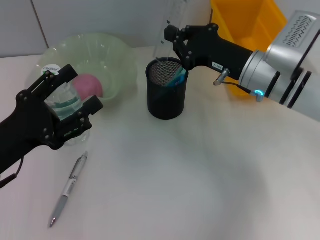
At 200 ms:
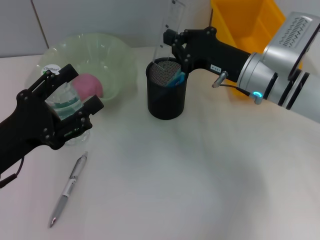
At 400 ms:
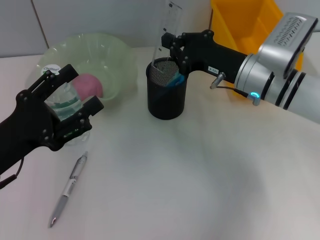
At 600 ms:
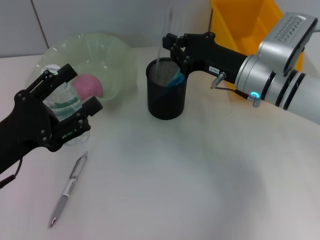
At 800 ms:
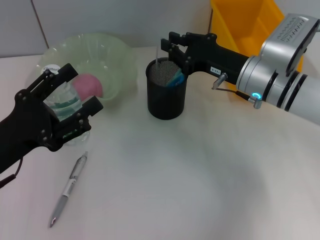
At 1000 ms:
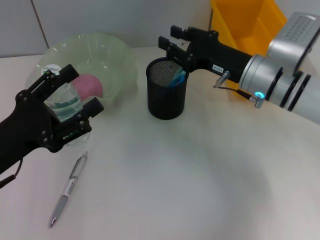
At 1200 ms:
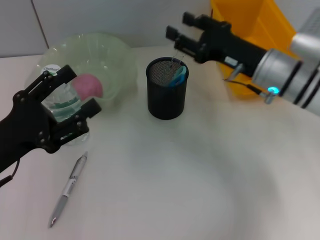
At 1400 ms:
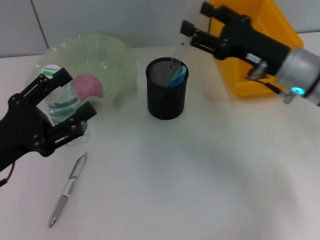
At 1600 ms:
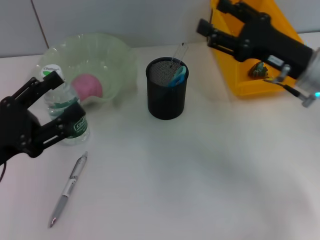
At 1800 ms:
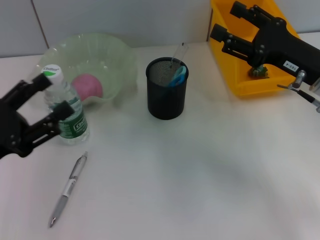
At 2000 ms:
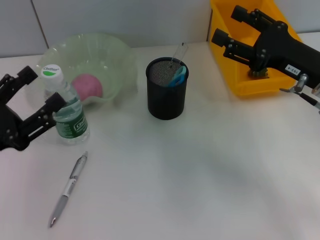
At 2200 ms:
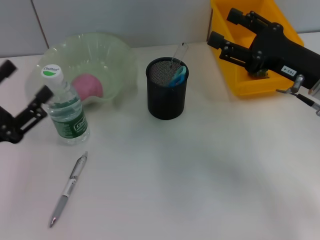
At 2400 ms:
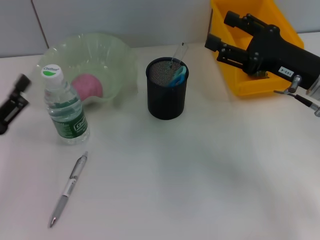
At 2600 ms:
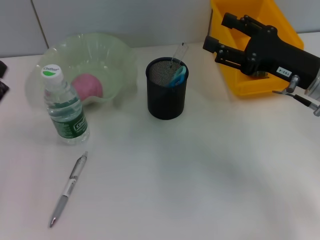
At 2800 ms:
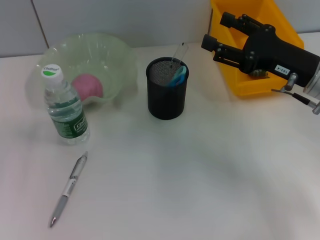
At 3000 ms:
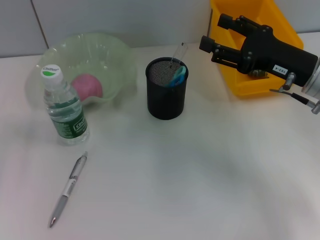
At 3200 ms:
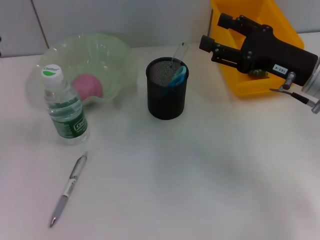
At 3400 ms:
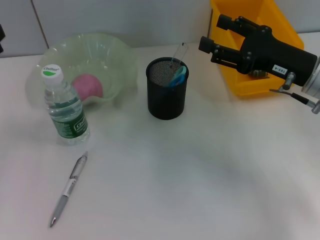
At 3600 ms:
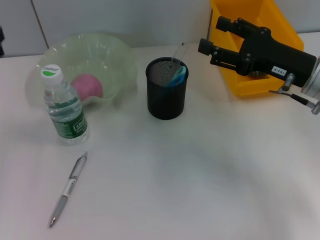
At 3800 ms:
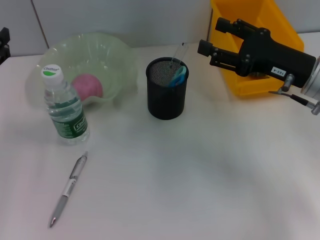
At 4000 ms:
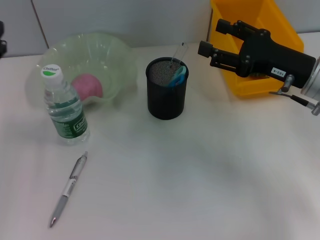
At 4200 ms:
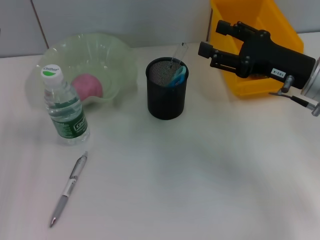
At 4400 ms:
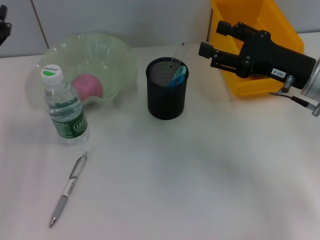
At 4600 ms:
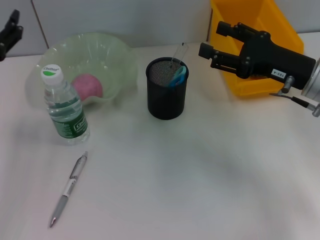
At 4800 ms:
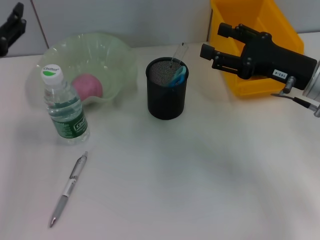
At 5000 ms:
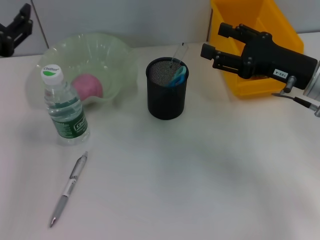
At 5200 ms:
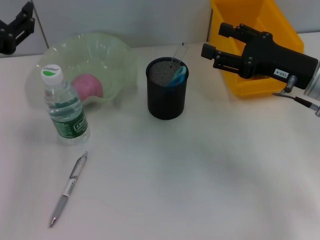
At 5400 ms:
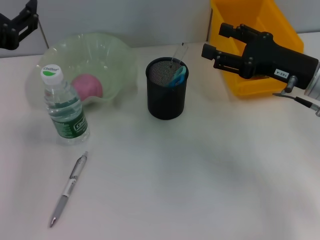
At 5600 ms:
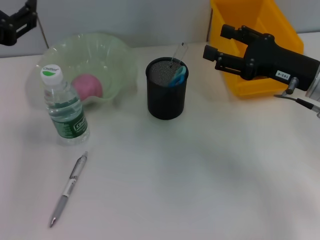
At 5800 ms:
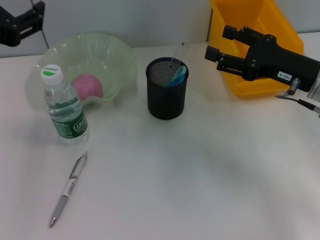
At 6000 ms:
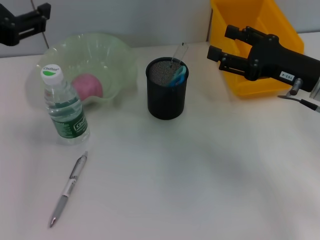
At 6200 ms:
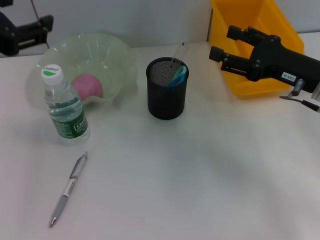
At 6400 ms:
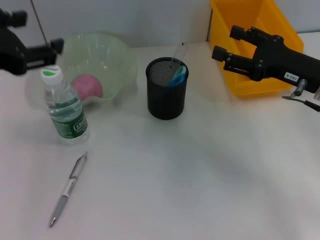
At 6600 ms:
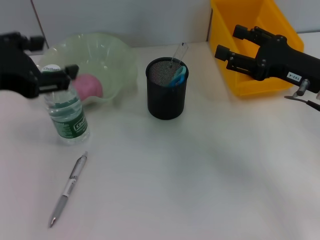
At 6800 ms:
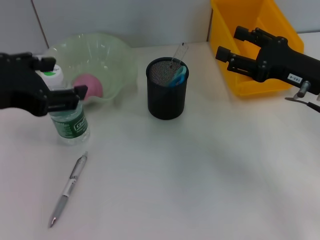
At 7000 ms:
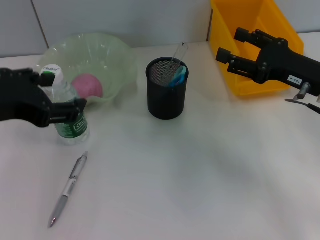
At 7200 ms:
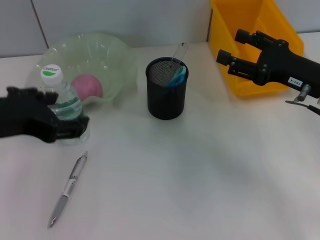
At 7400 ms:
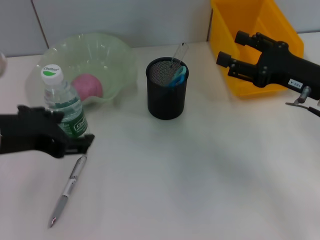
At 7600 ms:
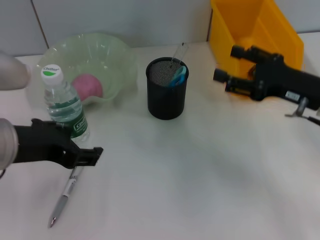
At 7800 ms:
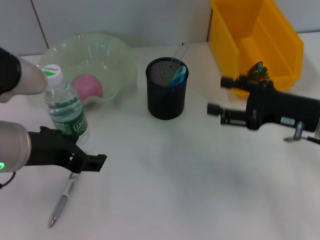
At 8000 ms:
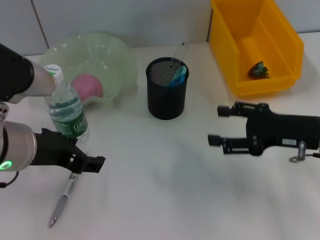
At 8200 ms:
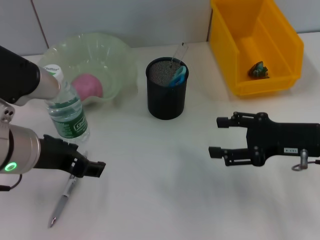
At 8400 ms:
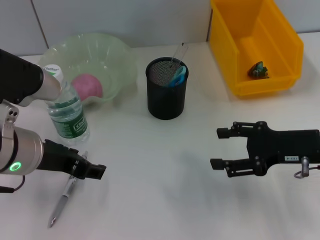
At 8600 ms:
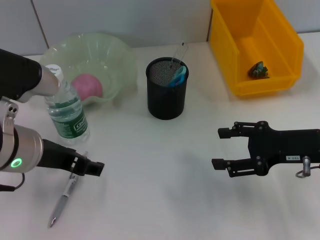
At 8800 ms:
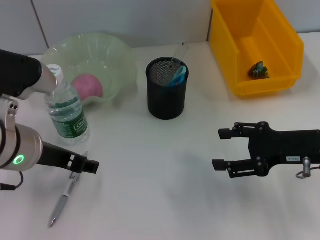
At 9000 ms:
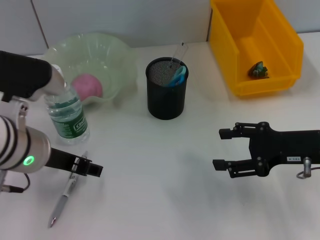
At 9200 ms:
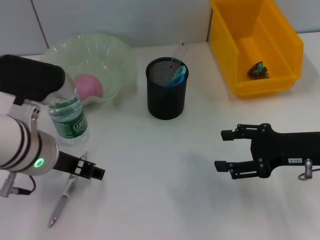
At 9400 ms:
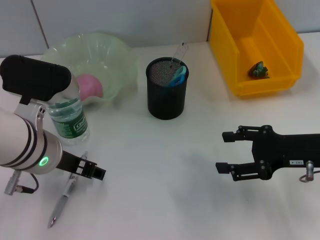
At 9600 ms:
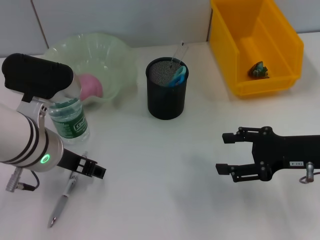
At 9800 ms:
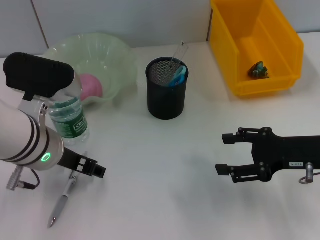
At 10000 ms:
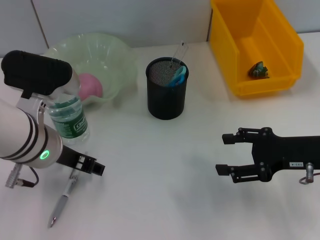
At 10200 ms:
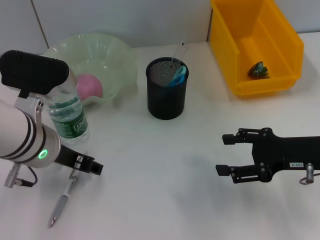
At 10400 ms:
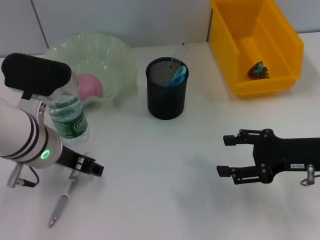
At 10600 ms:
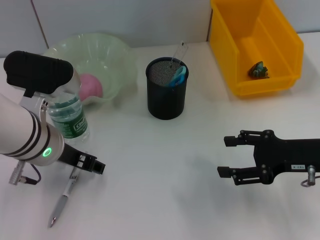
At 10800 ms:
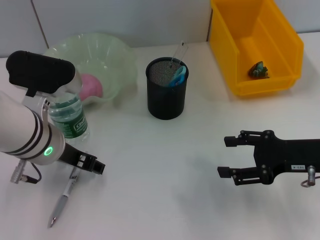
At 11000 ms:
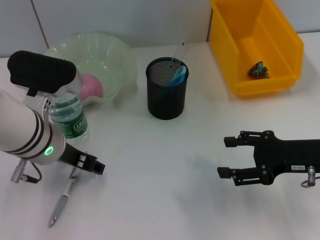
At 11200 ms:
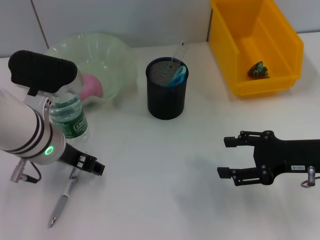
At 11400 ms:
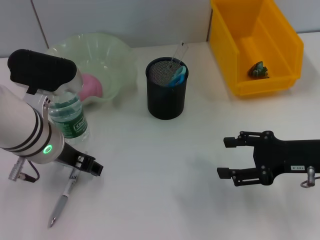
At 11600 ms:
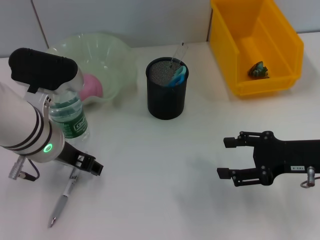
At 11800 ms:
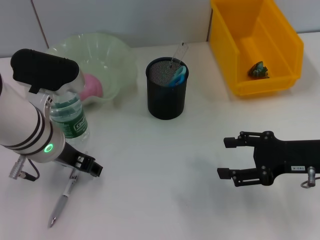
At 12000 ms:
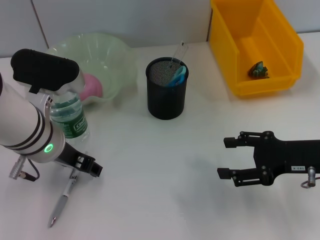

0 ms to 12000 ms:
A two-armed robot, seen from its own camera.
0 ms to 1600 ms: The right gripper goes about 5 cm to the right, and opens up.
3000 ms to 4400 ms: The left gripper is displaced upward by some 5 cm.
4400 ms to 6000 ms: The left gripper travels upward by about 10 cm.
6000 ms to 7600 ms: The left gripper moves downward, roughly 5 cm.
7600 ms to 9000 ms: The left gripper travels downward by roughly 5 cm.
9000 ms to 10400 ms: The grippers stay close to where they were, moving slightly.
10400 ms to 12000 ms: Both grippers stay about where they are.

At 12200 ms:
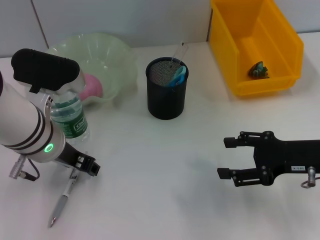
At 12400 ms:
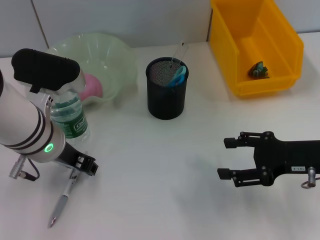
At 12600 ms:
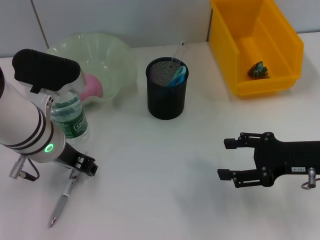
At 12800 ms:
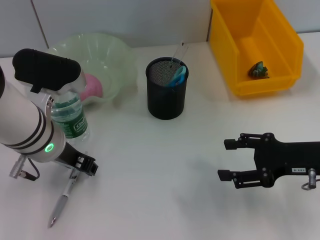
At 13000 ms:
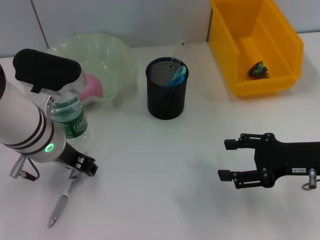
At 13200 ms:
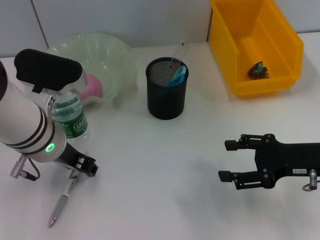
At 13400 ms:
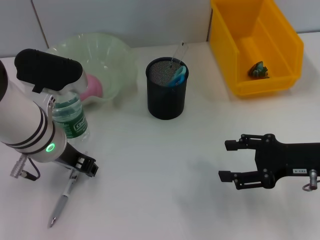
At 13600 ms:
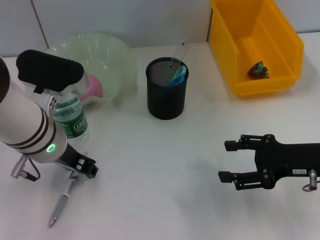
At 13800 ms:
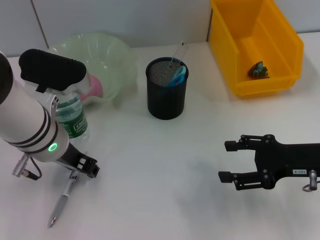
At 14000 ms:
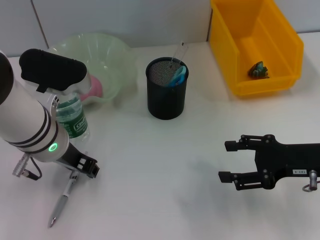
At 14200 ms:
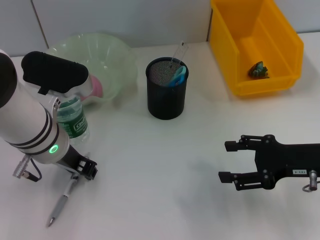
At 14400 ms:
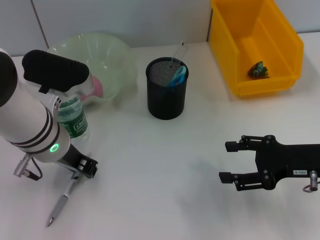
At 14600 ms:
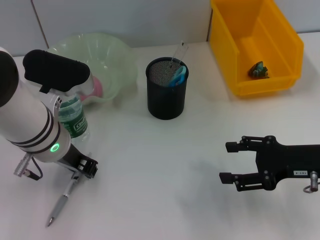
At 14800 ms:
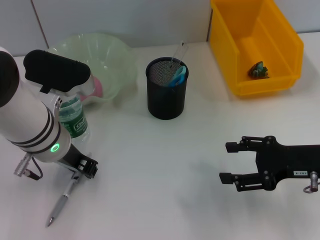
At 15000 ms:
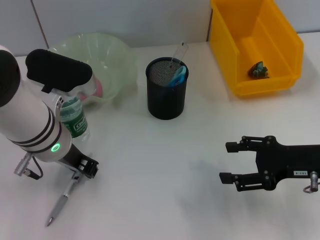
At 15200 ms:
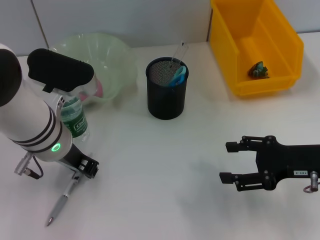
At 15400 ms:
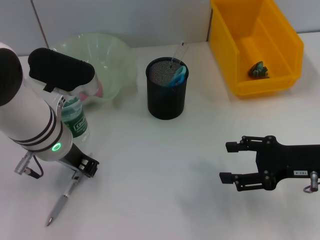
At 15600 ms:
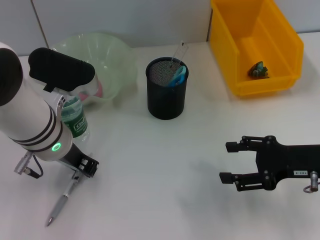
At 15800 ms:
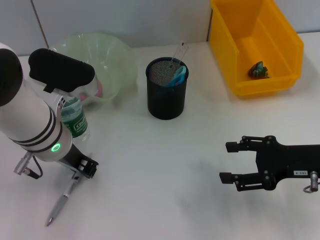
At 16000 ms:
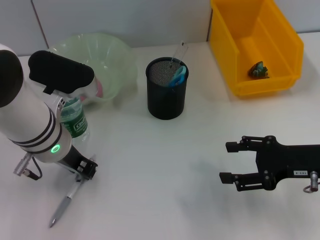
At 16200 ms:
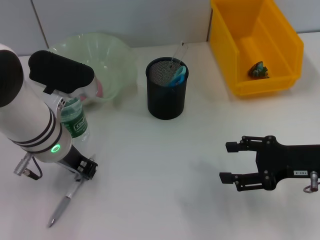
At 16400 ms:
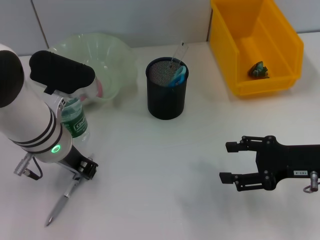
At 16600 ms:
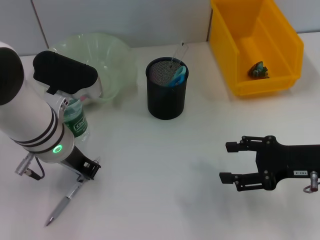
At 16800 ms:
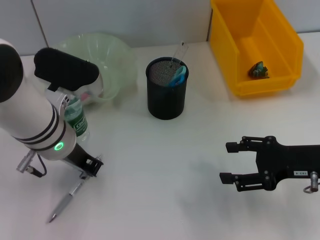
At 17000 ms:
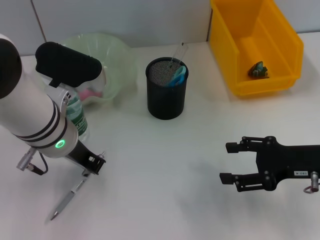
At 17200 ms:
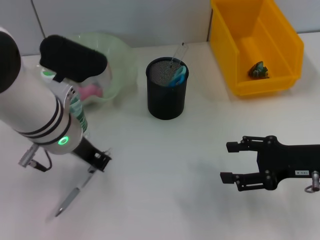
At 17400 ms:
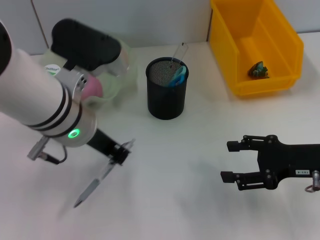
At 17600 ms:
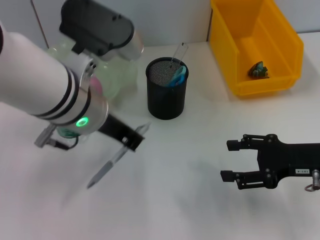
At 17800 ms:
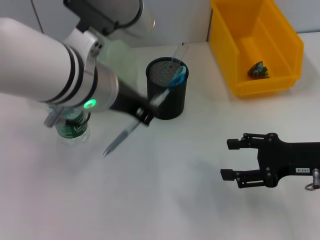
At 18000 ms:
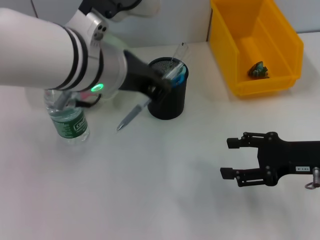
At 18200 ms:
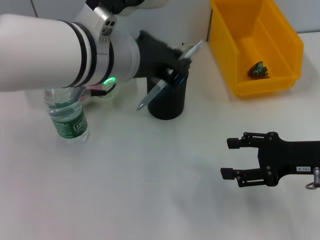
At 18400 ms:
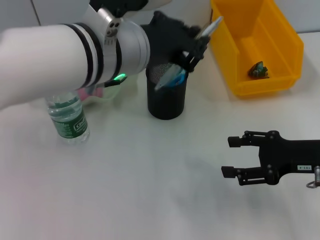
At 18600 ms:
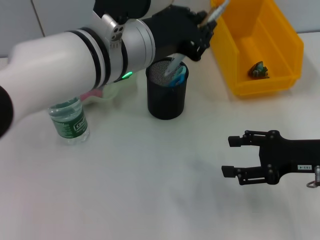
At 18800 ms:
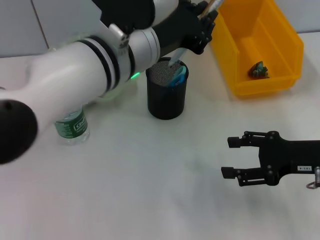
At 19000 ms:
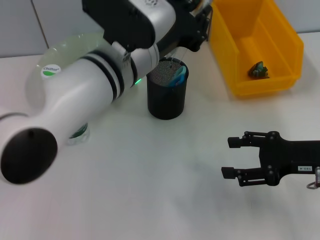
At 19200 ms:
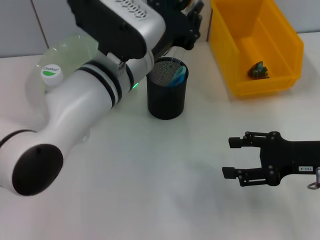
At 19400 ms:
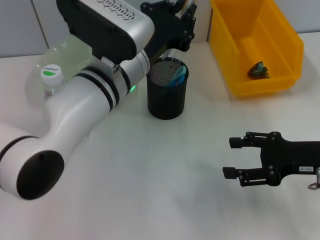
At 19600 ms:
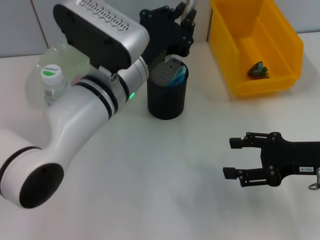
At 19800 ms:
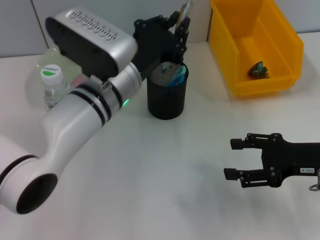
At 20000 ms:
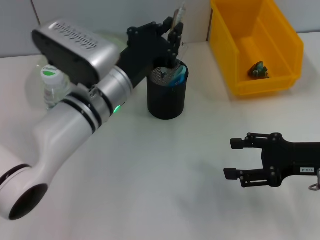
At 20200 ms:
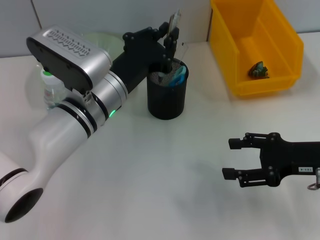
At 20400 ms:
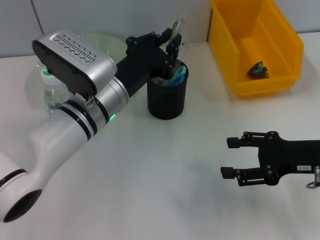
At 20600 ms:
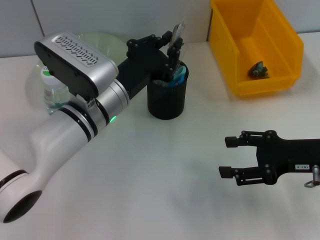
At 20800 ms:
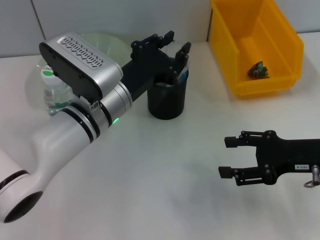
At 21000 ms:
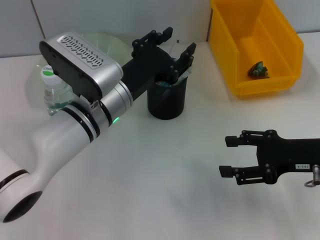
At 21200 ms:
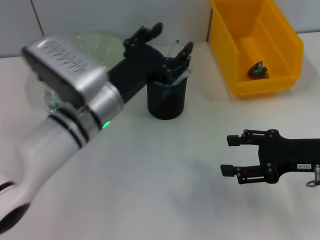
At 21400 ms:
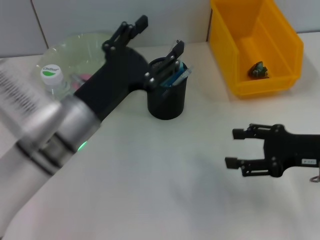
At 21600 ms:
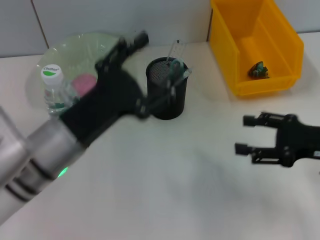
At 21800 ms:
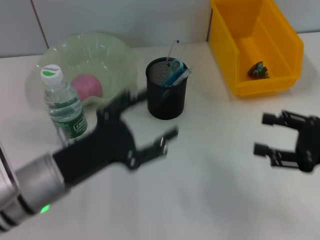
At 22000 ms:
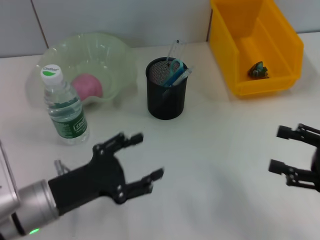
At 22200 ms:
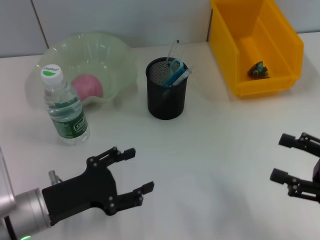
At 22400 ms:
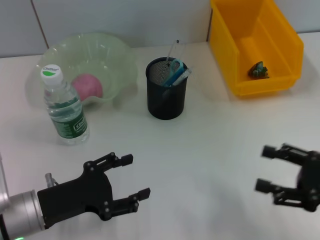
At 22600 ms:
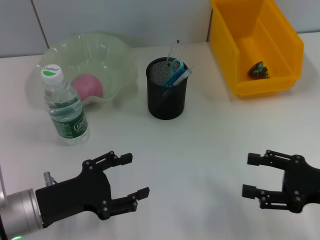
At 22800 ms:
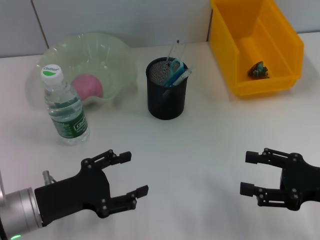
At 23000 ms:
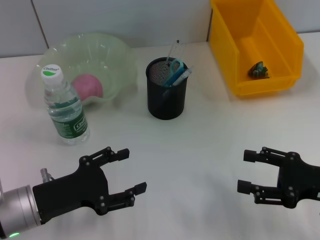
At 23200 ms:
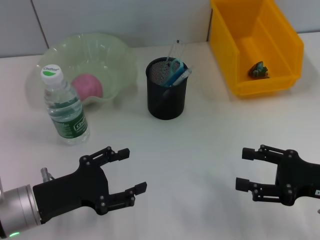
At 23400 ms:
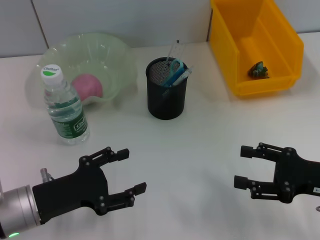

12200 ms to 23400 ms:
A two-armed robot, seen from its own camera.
Step, 12200 ms to 16400 ms: Grab the gray spring-action pen with the left hand.
Step, 16600 ms to 21000 ms: Place the gray spring-action pen into the pen holder with the left hand.
12200 ms to 13800 ms: Neither gripper changes place.
13800 ms to 15400 ms: Both grippers stay about where they are.
15400 ms to 17000 ms: The two grippers keep their place.
17000 ms to 18600 ms: The left gripper moves upward and to the right, about 10 cm.
18600 ms to 20200 ms: The left gripper moves downward, approximately 10 cm.
20200 ms to 21800 ms: The right gripper changes place by some 5 cm; the left gripper heads backward and to the left, covering approximately 10 cm, and opens up.
21800 ms to 23400 ms: The left gripper shifts some 10 cm to the left and downward.
